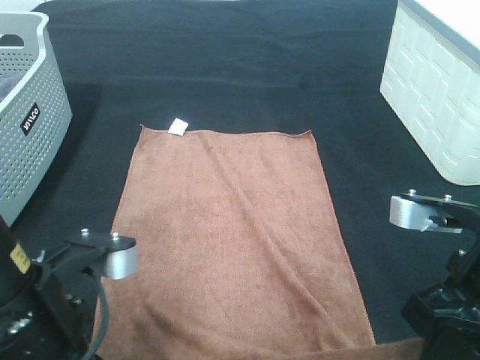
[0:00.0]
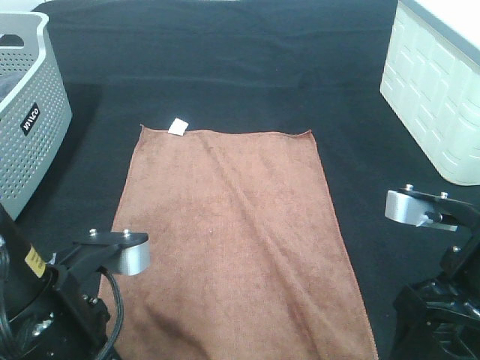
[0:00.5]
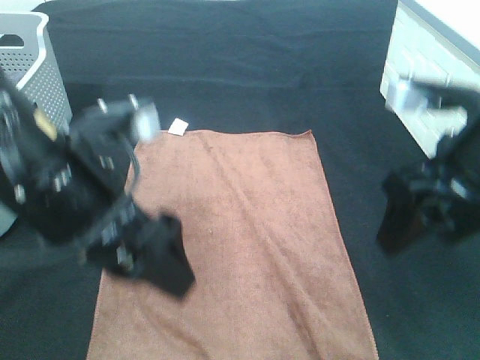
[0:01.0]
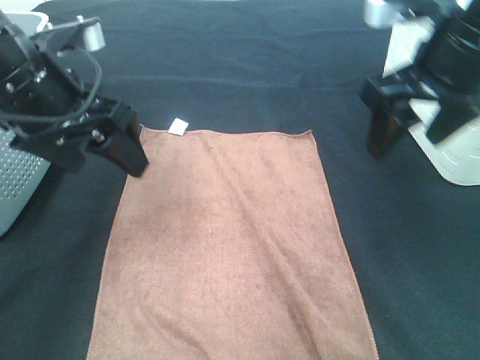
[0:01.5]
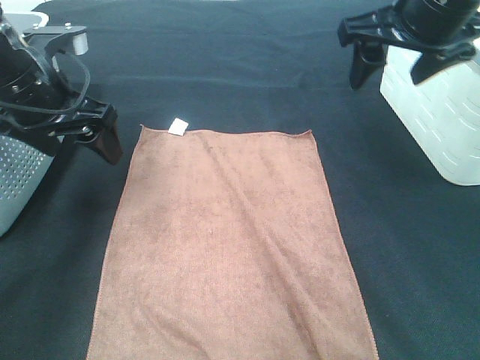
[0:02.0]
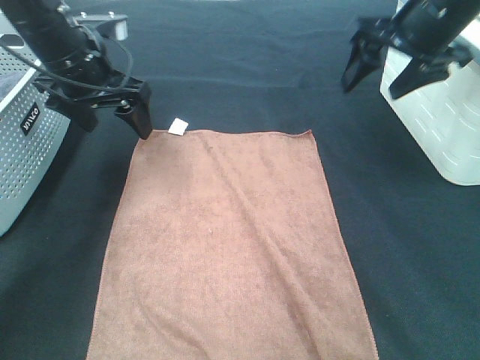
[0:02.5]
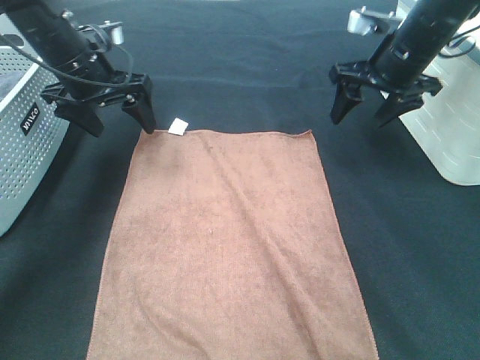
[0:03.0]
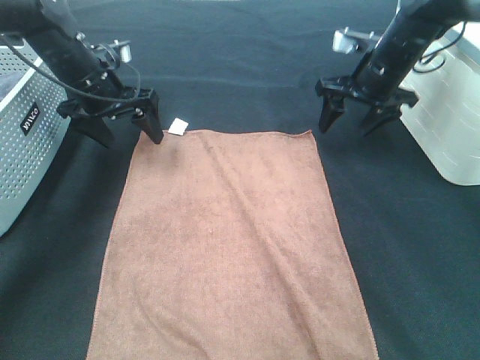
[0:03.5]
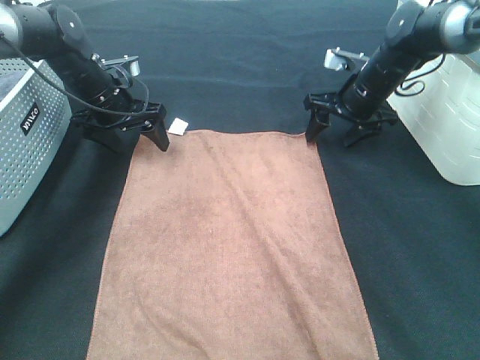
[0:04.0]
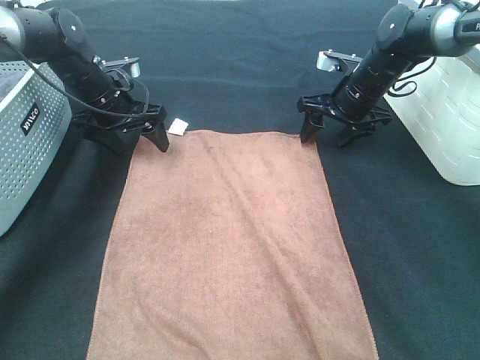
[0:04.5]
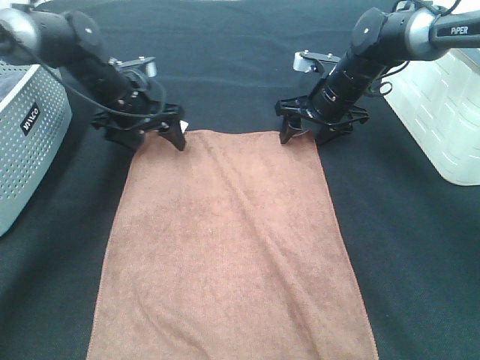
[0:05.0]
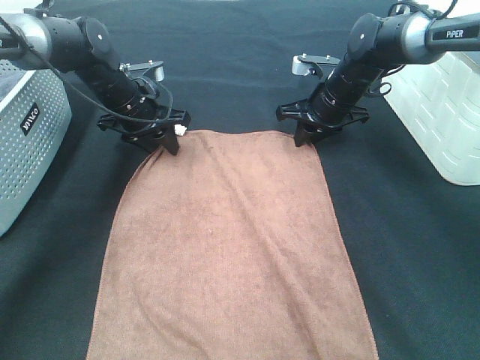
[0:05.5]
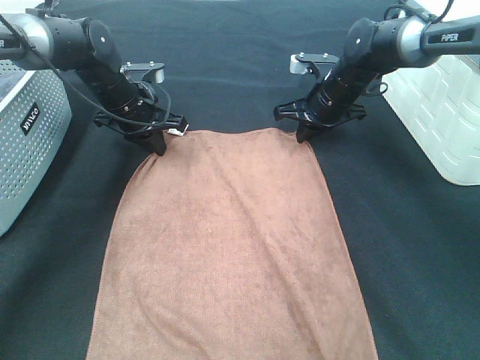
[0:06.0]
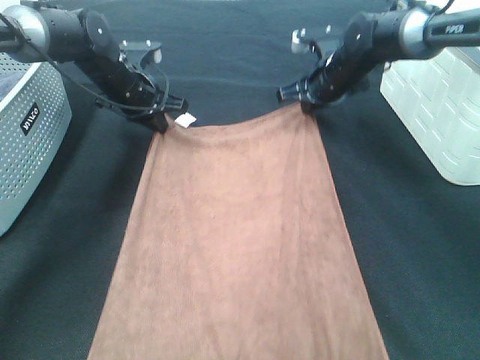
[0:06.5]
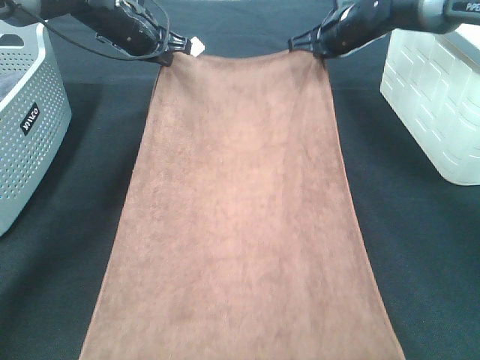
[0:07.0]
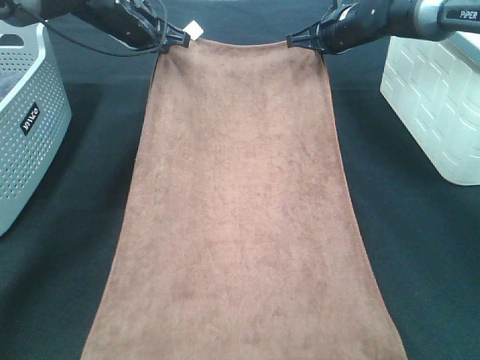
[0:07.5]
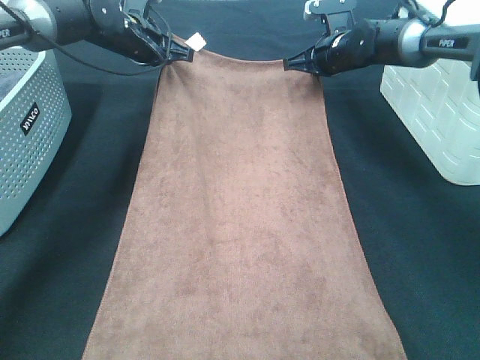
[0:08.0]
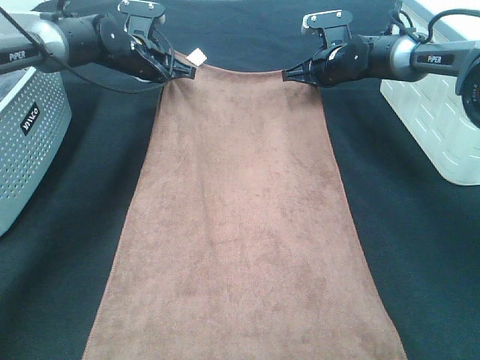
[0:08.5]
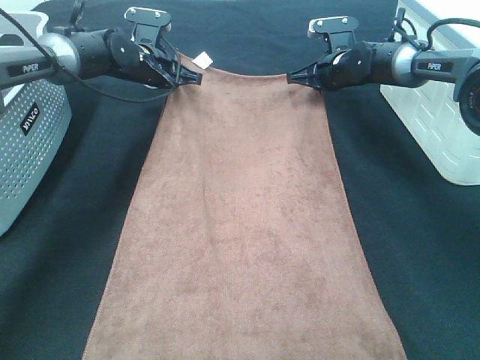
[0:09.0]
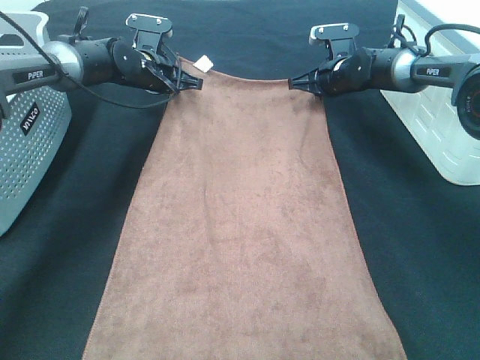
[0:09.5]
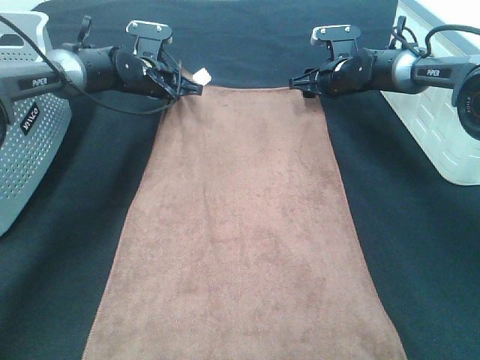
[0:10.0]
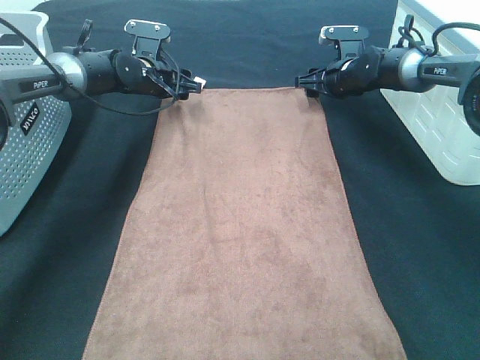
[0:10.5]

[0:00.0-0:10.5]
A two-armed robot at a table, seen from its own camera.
Task of the whole recording: Remove the towel and place it.
Step, 0:00.0 to 0:04.0: Left hand:adjust the brown towel.
Step, 0:00.0 to 0:04.0: Right hand:adjust the brown towel.
0:00.0 to 0:02.0: The left gripper travels forward by roughly 20 cm, and opens up. Meanwhile the right gripper moves forward and upward, roughly 25 cm, and opens its fingers.
0:02.0 to 0:04.0: The right gripper moves downward and forward, some 25 cm. Meanwhile the left gripper goes approximately 20 cm forward and downward.
0:04.0 to 0:06.5: The right gripper shifts by approximately 5 cm, and closes. The left gripper closes.
0:06.5 to 0:08.5: Both grippers travel together forward, approximately 5 cm. The right gripper moves roughly 5 cm upward and comes back.
0:08.5 to 0:10.5: The right gripper opens up. The left gripper opens up.

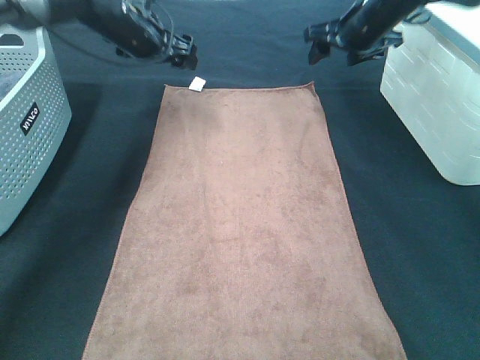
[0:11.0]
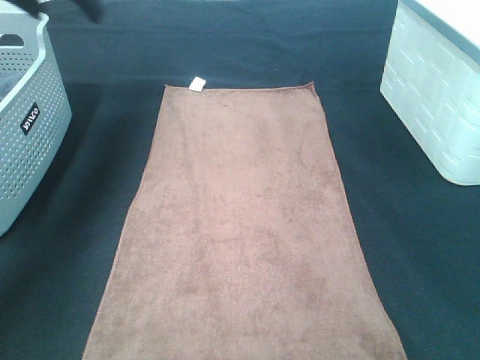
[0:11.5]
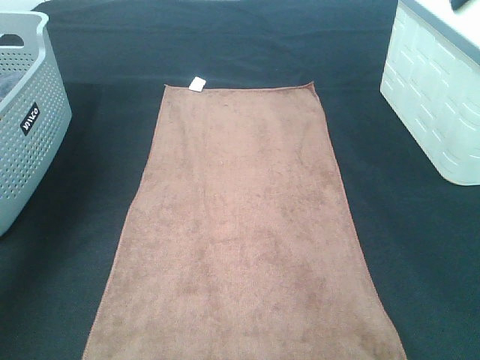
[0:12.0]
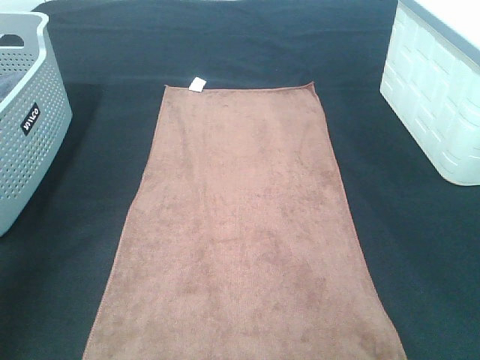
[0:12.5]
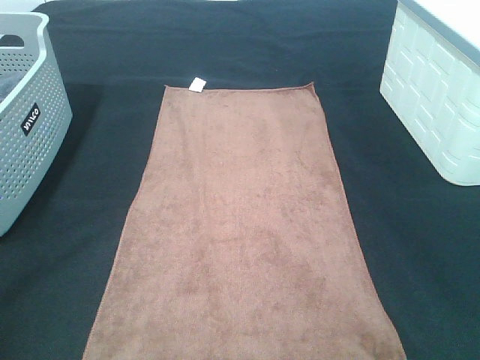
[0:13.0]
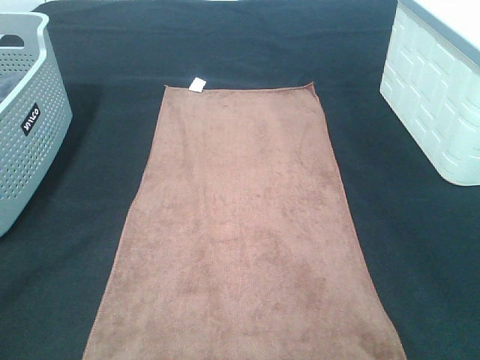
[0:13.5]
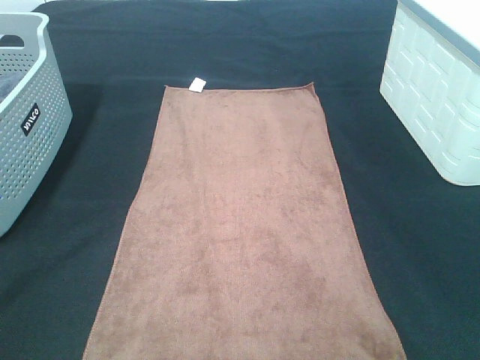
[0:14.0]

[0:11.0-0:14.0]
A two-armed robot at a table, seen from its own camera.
Task of the whole recording: Remove the towel and place it.
0:11.0 to 0:12.5: The left gripper heads backward, upward and to the left, covering some 40 cm, while the right gripper goes approximately 40 cm backward.

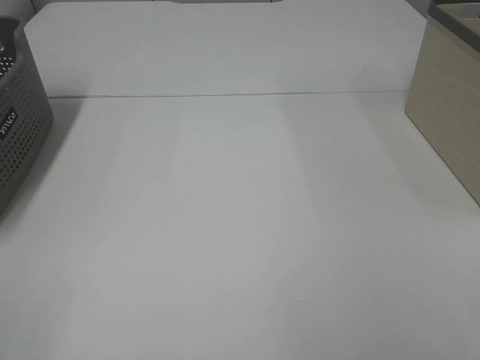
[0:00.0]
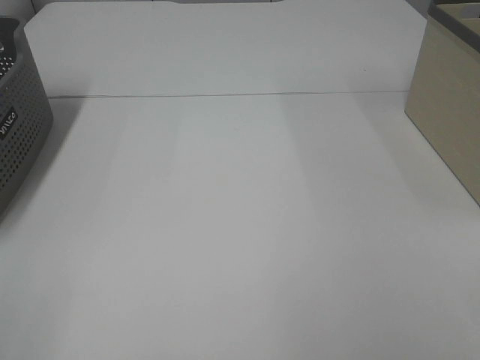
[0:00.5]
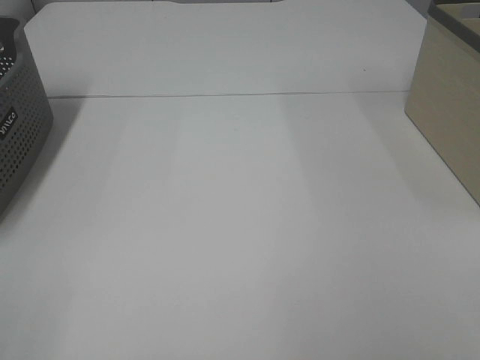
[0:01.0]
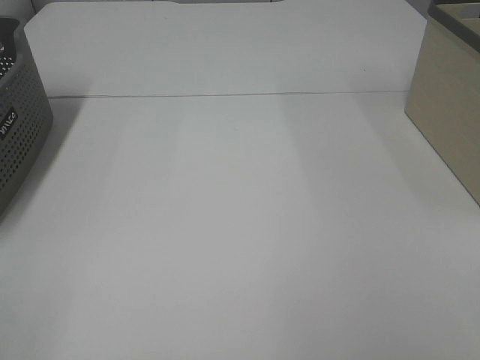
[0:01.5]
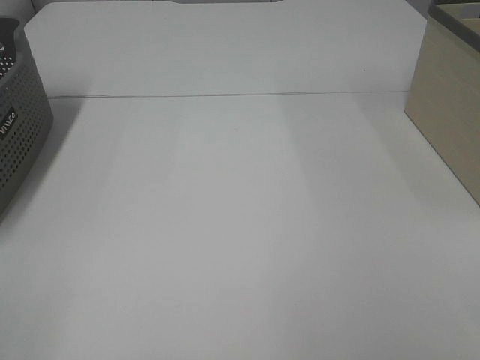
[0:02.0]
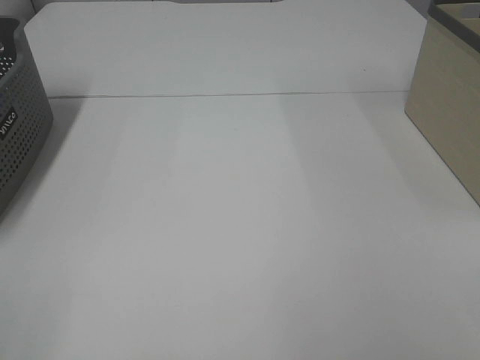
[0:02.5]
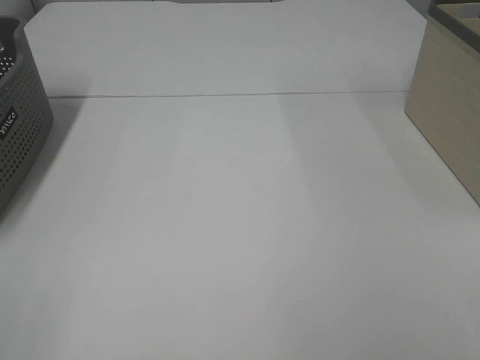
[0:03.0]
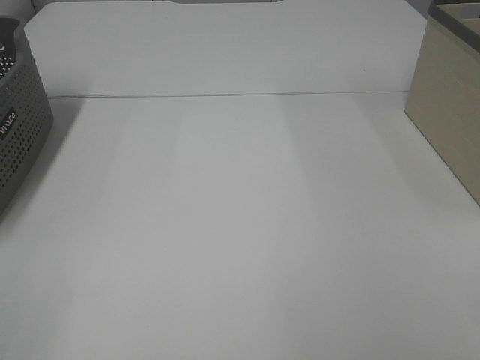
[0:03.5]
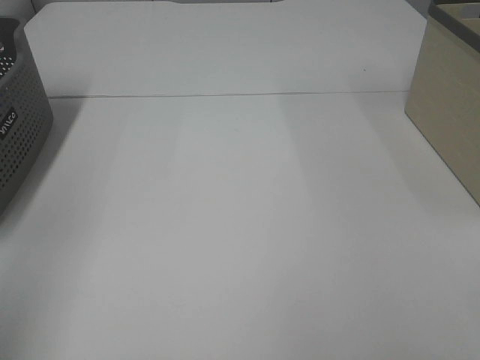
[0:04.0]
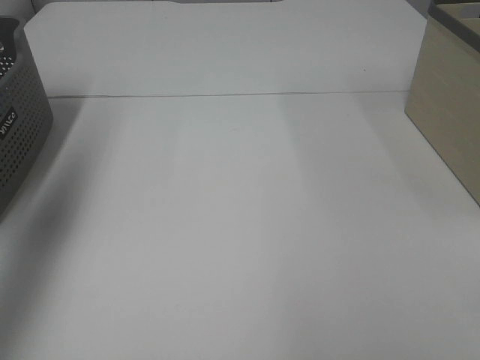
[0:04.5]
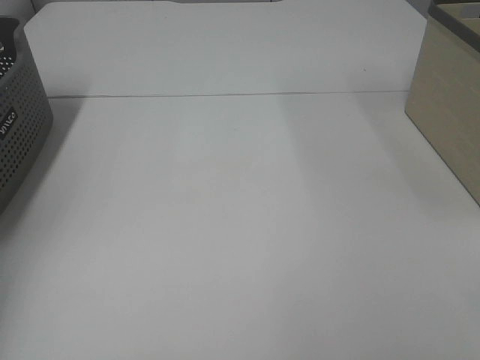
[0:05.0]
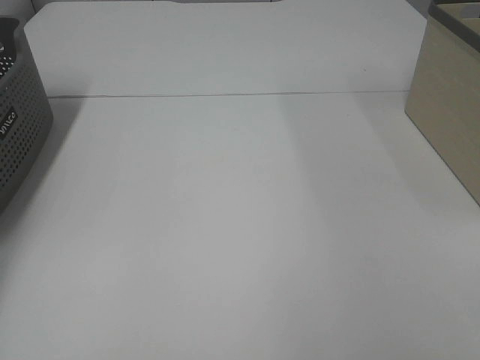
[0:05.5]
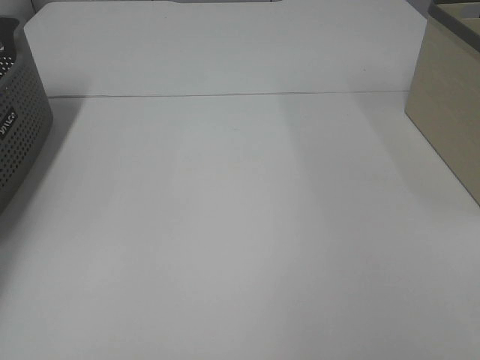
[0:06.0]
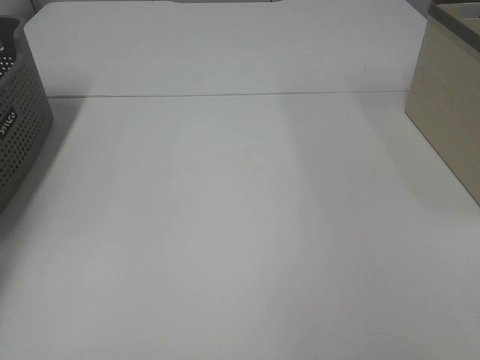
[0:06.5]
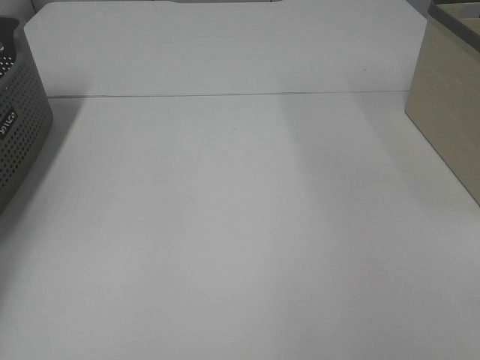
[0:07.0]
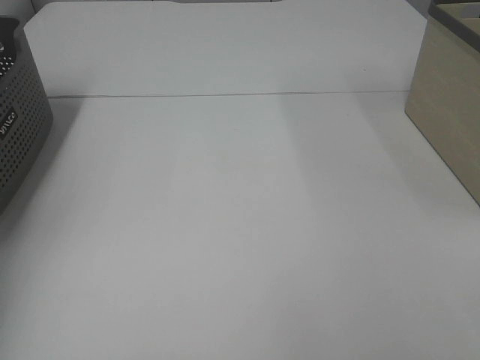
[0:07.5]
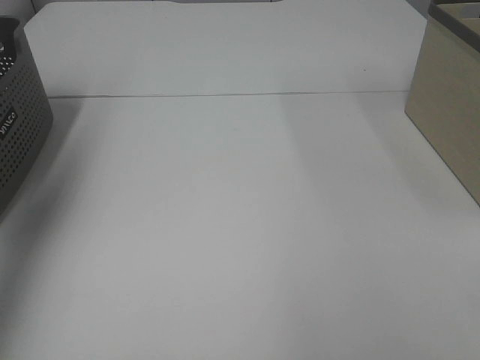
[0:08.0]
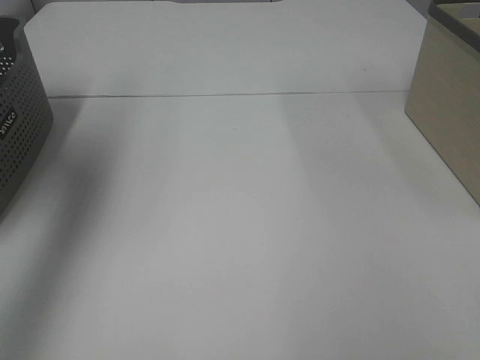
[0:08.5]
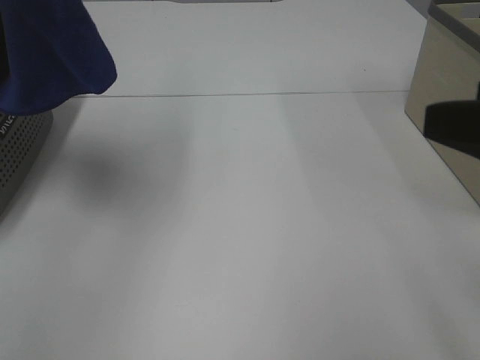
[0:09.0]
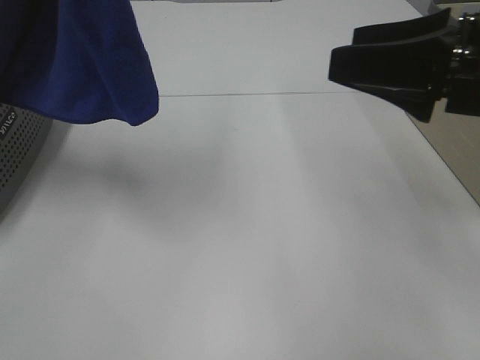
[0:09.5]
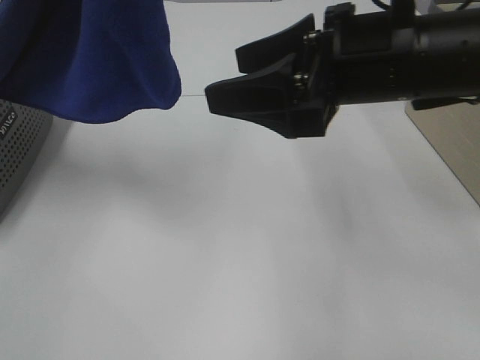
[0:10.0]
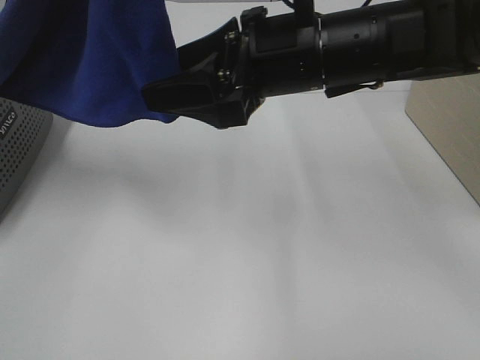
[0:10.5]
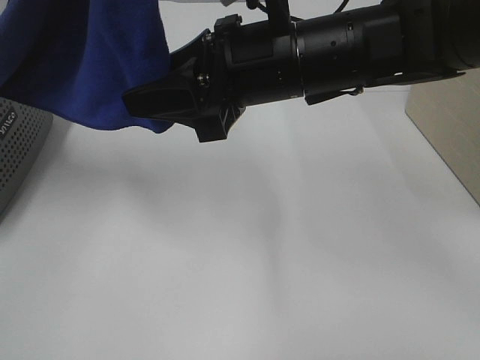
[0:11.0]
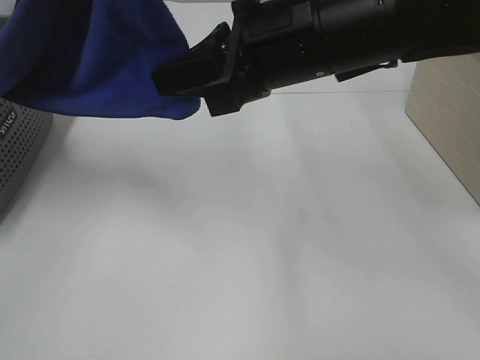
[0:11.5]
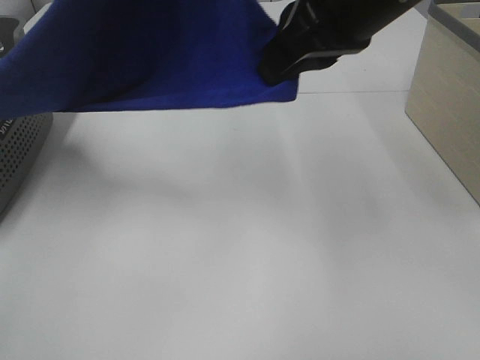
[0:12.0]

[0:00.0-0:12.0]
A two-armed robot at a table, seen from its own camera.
Task of the whole recording: Remove the towel and place it.
Step, 0:08.5 to 0:11.5: Right hand: grab a corner of the blue towel and straighten it.
0:00.0 to 0:02.0: Both grippers stay put.
0:04.0 to 0:06.0: The left gripper shifts about 40 cm forward and downward.
0:06.0 to 0:08.0: The left gripper is displaced upward and backward by about 35 cm, and closes.
0:08.0 to 0:10.0: The right gripper is displaced forward and to the left by approximately 30 cm, while the left gripper shifts some 25 cm to the right.
0:10.0 to 0:12.0: The right gripper goes about 5 cm upward, and closes its fingers. Meanwhile the left gripper shifts by some 5 cm.
